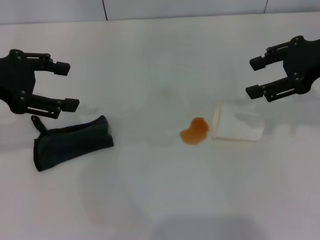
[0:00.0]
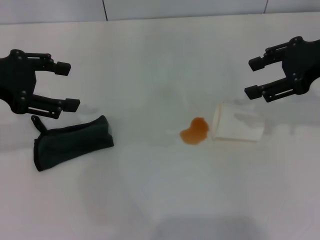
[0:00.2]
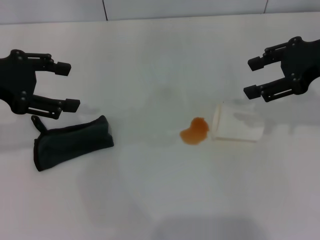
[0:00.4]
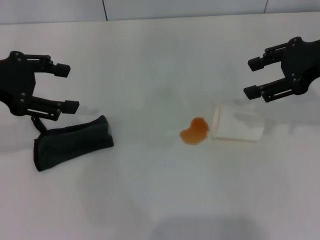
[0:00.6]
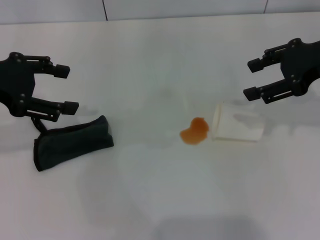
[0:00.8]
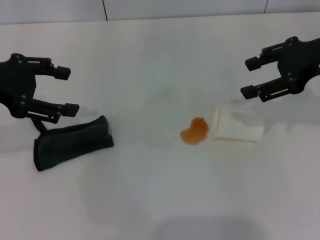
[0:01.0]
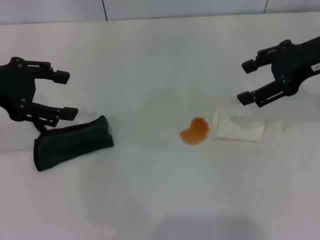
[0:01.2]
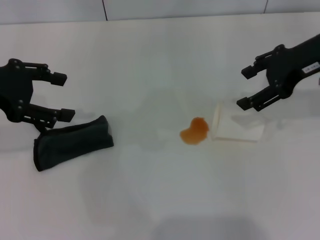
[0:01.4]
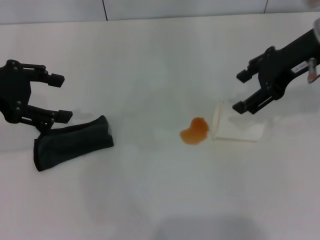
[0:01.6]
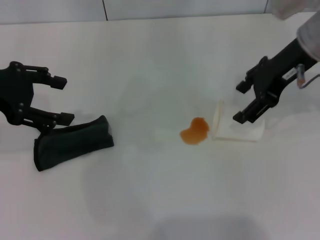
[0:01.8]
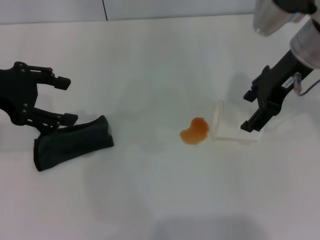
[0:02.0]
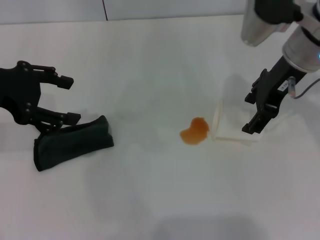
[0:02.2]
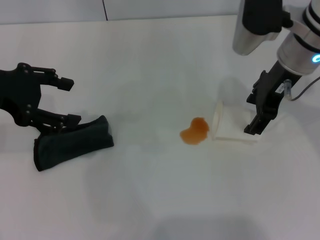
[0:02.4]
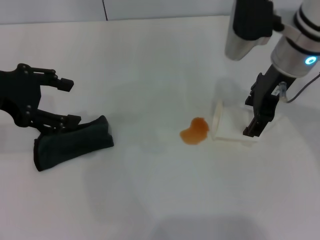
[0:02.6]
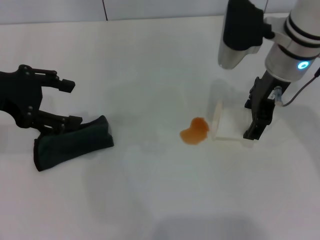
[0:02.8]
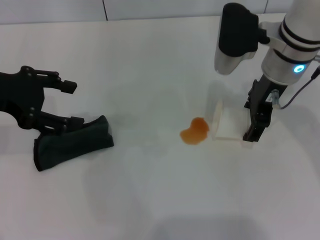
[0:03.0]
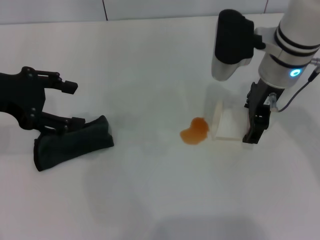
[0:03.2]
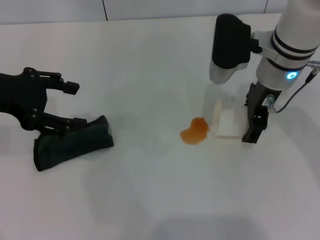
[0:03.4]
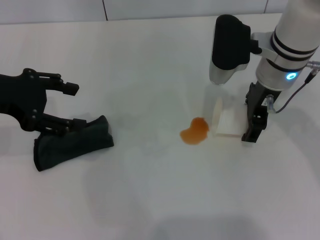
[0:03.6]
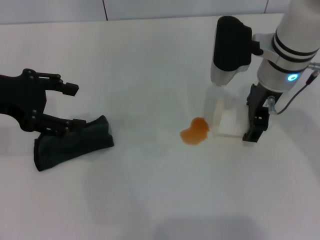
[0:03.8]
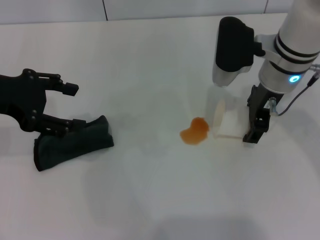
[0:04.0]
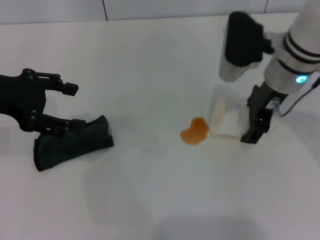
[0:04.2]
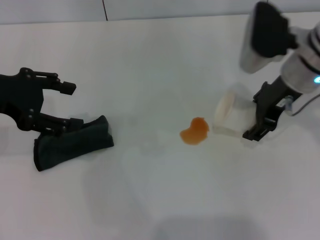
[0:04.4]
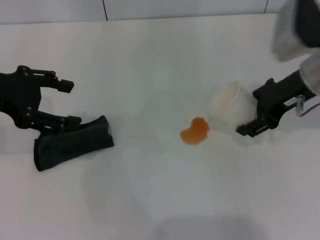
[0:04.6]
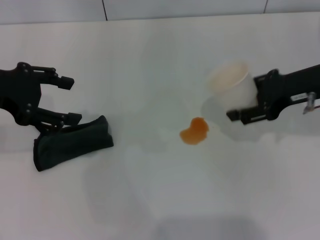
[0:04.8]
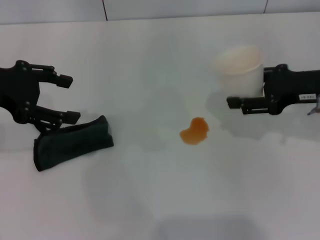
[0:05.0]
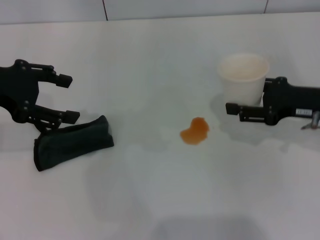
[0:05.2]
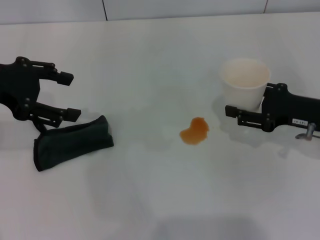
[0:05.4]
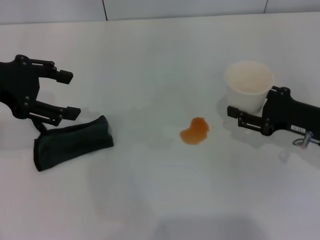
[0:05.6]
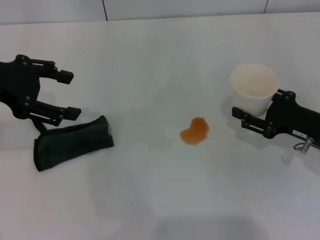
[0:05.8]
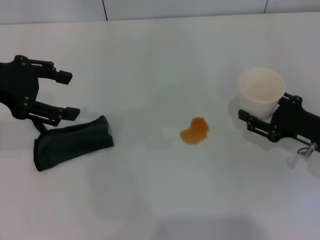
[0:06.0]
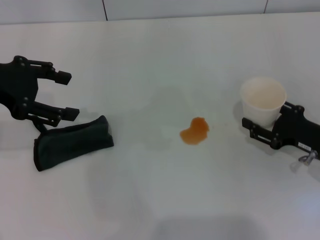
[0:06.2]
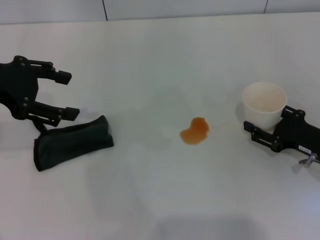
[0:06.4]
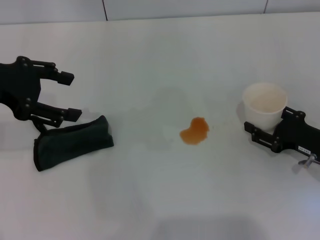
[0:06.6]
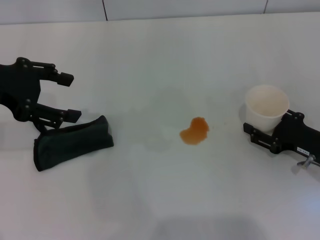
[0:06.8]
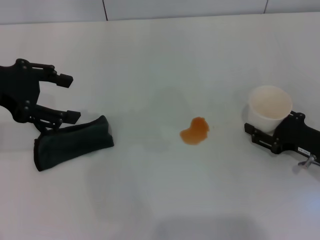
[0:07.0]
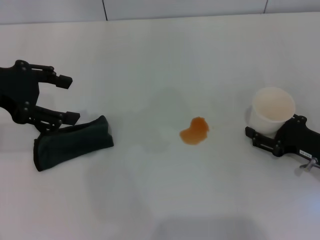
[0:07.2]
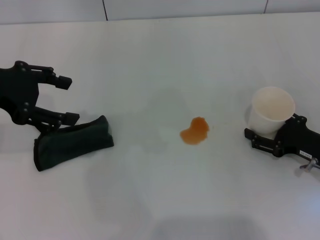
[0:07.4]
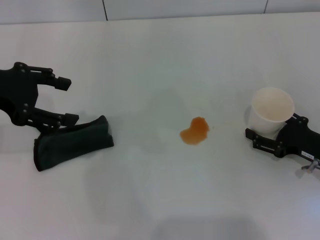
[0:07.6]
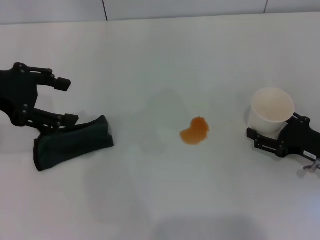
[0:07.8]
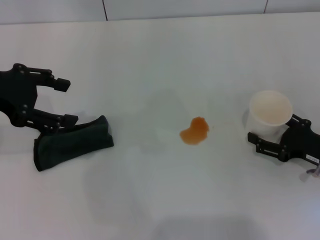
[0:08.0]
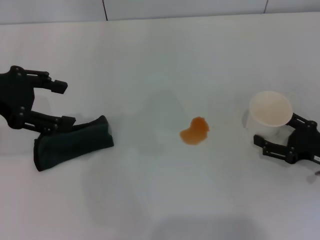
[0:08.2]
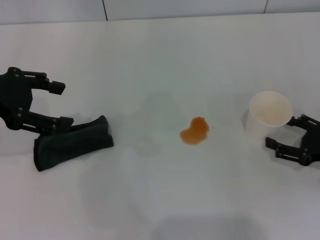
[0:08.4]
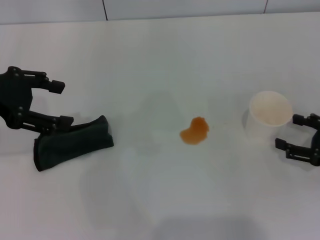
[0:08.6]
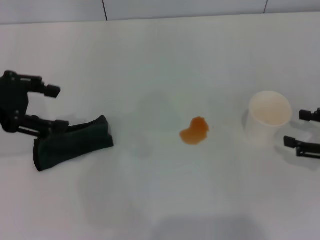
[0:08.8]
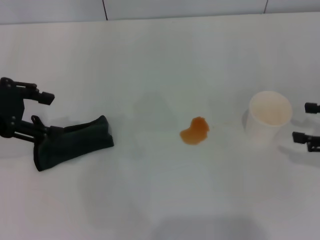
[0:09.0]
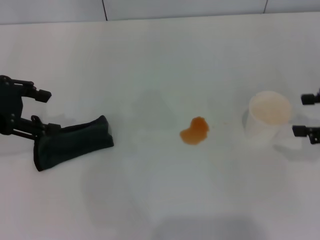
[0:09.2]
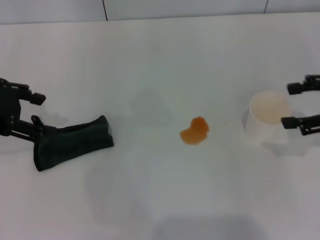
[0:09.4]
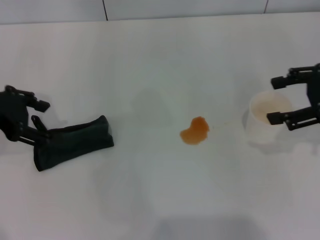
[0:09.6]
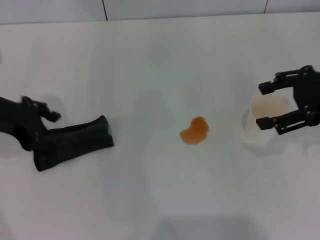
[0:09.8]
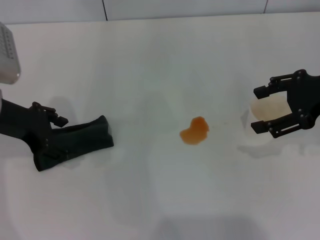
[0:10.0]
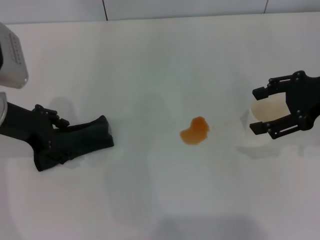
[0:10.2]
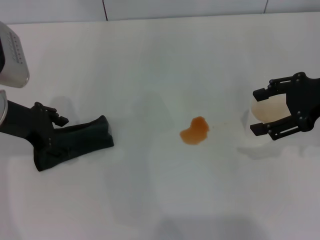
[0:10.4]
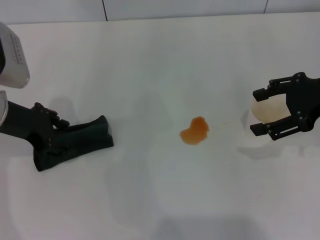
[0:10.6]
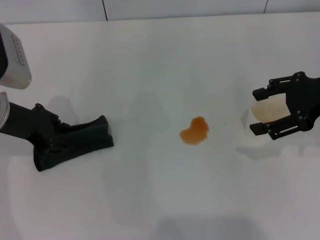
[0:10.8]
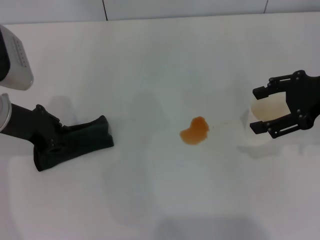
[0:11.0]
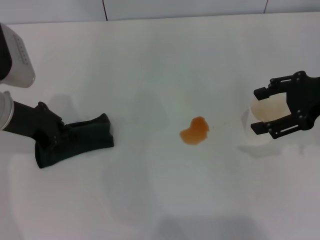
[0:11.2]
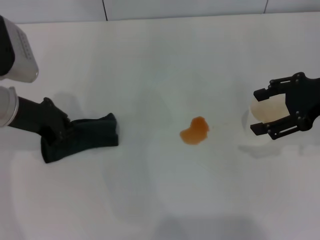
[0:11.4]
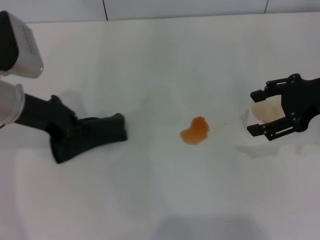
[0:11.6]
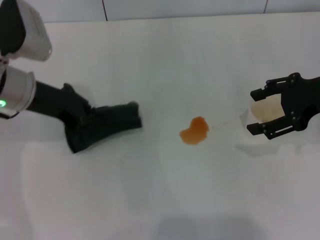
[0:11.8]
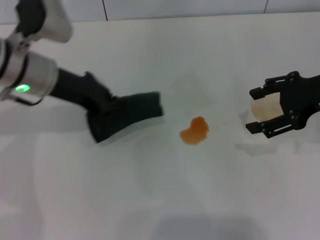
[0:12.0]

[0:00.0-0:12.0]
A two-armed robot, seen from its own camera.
Step, 0:00.0 to 0:03.8: Grasp the paper cup with the right gripper.
Step, 0:04.0 to 0:08.6: Stand the paper cup upright with the right gripper.
Step, 0:08.8 to 0:11.4: Grasp the rag with the left gripper.
0:00.0 to 0:01.6: The right gripper heads to the left, covering about 5 cm, and opens its fingers.
0:01.6 to 0:03.0: The right gripper goes about 5 cm to the left.
0:03.0 to 0:04.4: The right gripper closes up.
0:04.4 to 0:06.0: The right gripper heads downward, to the right and backward, covering roughly 20 cm.
0:06.0 to 0:07.6: The right gripper opens up.
0:07.6 to 0:09.0: The right gripper moves upward and to the right, roughly 10 cm.
0:09.0 to 0:10.4: The left gripper goes approximately 5 cm downward. Meanwhile the right gripper heads upward, to the left and forward, covering approximately 15 cm.
0:10.4 to 0:12.0: The left gripper shifts roughly 5 cm to the right, and closes its fingers.

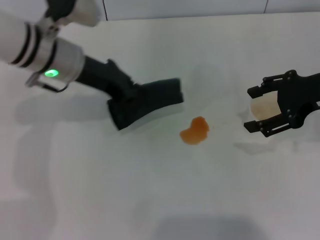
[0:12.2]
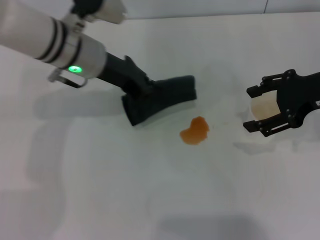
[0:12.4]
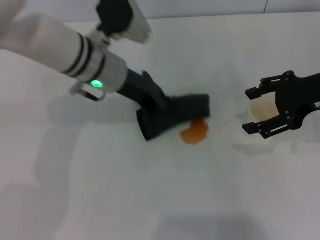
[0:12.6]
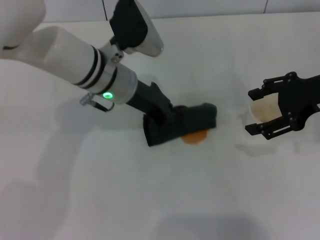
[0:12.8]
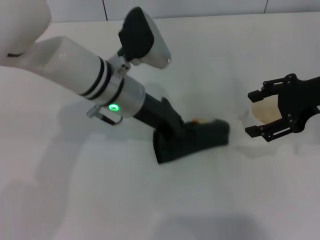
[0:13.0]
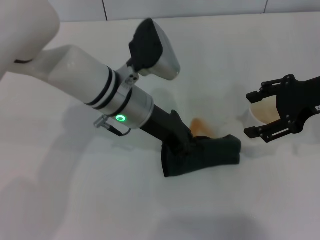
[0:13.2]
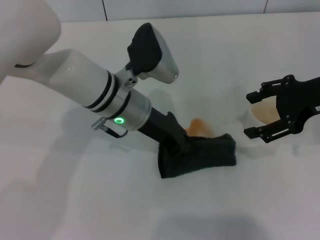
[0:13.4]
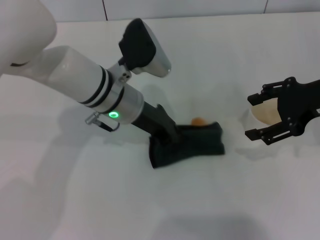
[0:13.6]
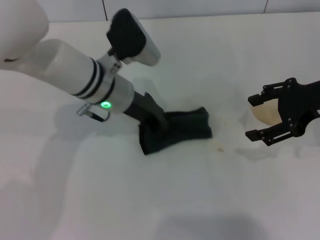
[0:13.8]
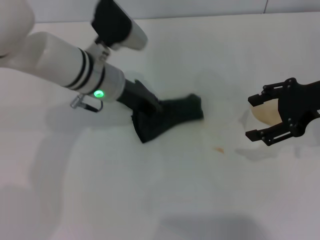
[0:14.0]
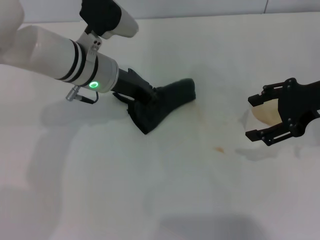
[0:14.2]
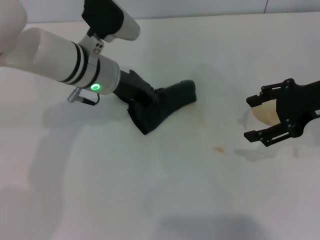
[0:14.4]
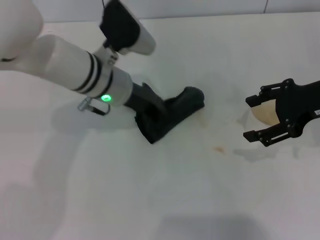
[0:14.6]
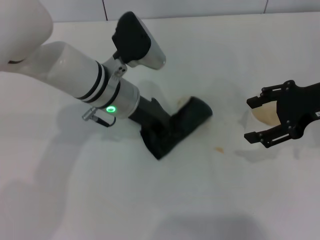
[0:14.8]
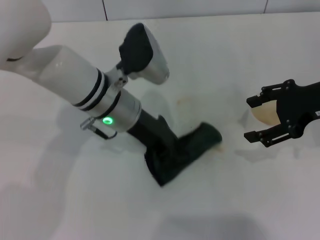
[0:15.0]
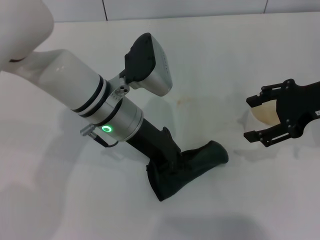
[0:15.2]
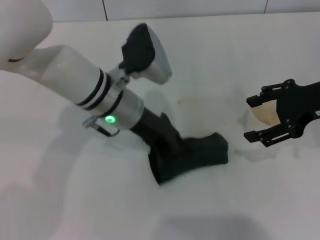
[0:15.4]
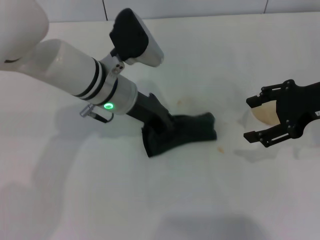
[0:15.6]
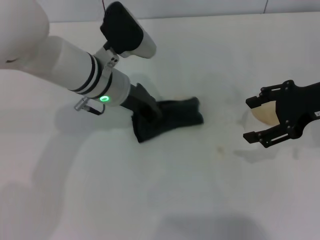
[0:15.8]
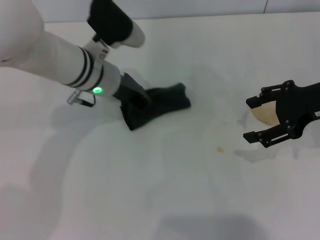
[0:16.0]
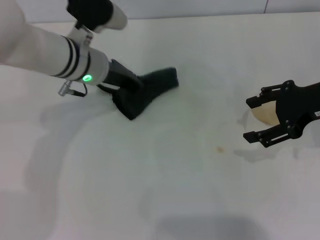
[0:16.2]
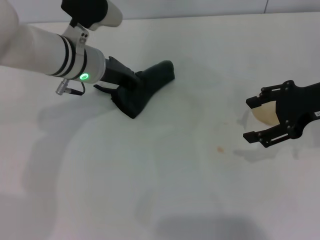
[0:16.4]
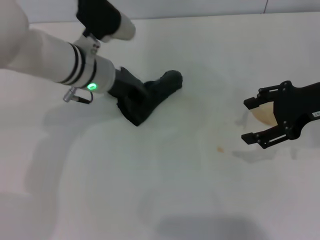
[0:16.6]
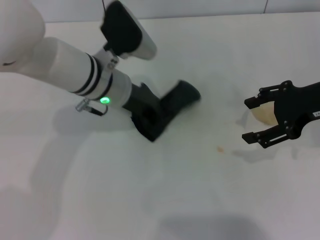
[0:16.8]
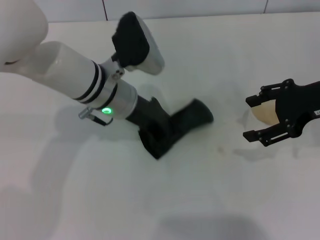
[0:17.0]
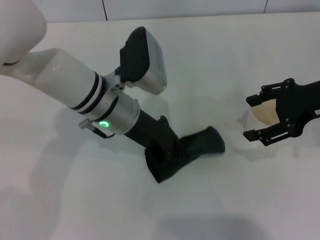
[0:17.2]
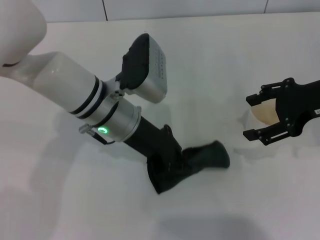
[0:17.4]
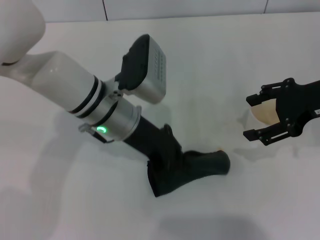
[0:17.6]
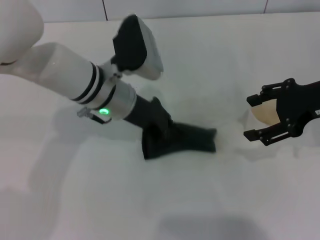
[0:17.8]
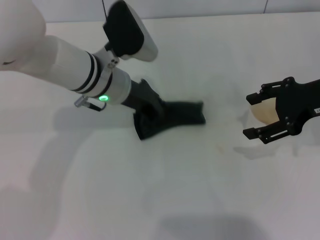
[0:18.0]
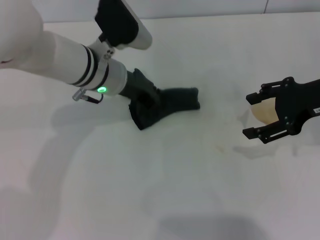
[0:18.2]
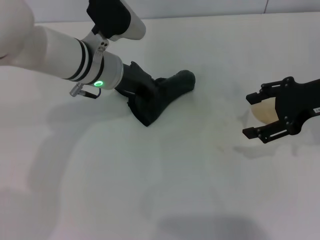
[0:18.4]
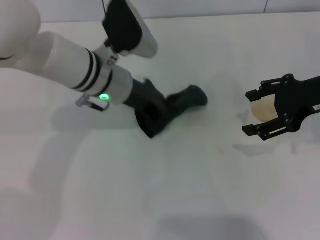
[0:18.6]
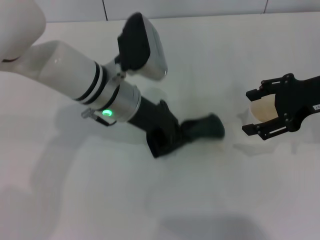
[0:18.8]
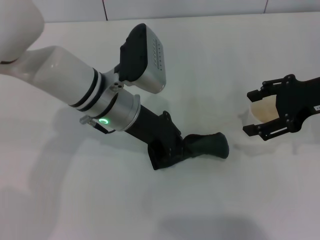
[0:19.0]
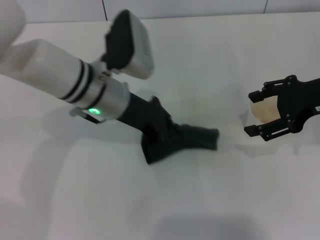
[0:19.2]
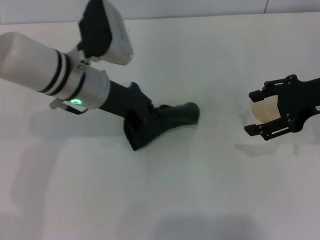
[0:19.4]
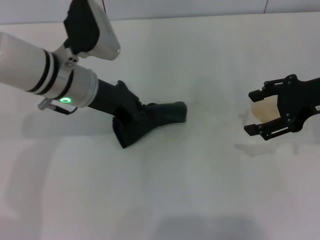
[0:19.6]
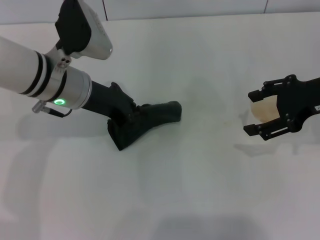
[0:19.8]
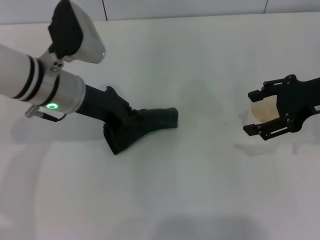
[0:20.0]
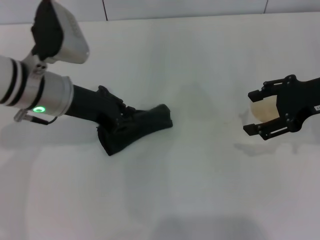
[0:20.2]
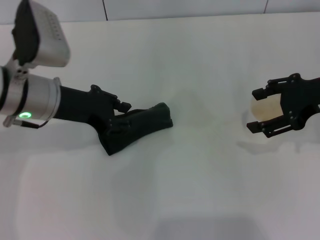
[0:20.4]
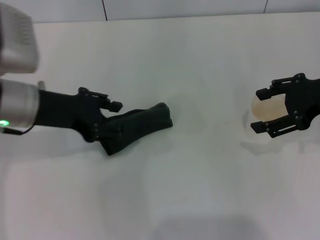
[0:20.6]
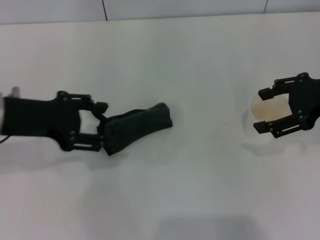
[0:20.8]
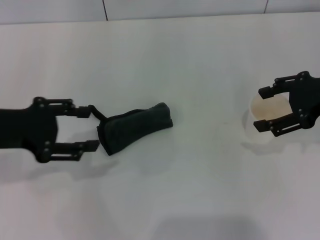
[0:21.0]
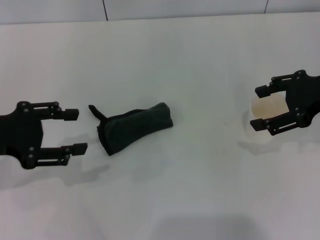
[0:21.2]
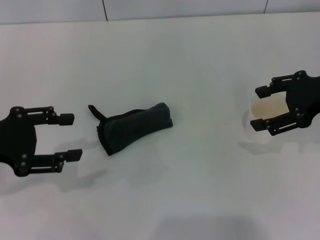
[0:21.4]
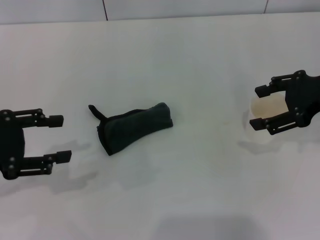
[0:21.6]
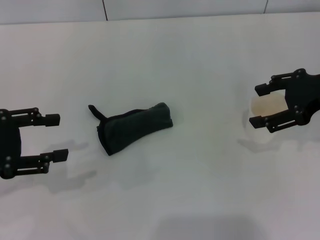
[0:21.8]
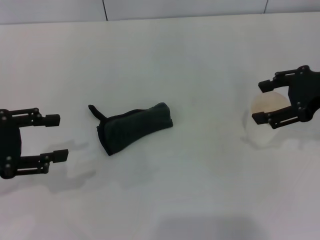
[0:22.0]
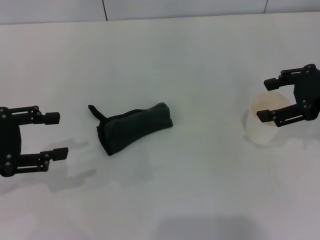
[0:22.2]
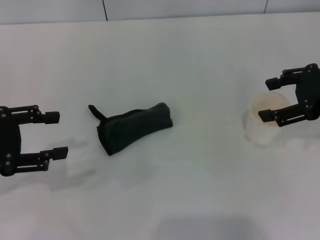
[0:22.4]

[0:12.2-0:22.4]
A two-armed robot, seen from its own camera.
Step, 0:12.2 to 0:19.8: Wipe the stains off the table with the left gripper.
Step, 0:20.0 to 0:21.0: Place the rag on the table with the left gripper.
0:12.2 to 0:13.6: The left gripper goes approximately 10 cm to the right and downward.
0:13.6 to 0:15.2: The grippers stay close to where they were, moving slightly.
0:15.2 to 0:16.6: The left gripper heads forward, covering some 5 cm.
0:19.4 to 0:21.0: The left gripper is displaced to the left and backward by approximately 20 cm, and opens its fingers.
0:21.0 to 0:22.4: The grippers move only a little.
